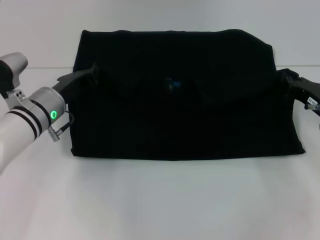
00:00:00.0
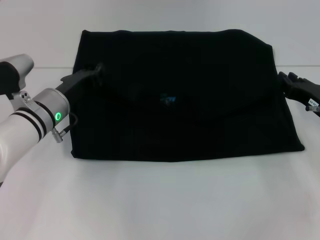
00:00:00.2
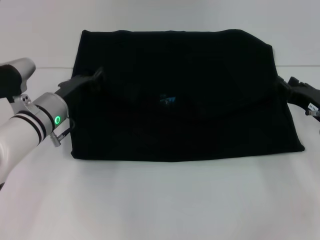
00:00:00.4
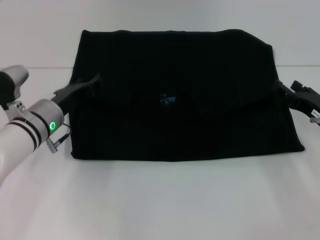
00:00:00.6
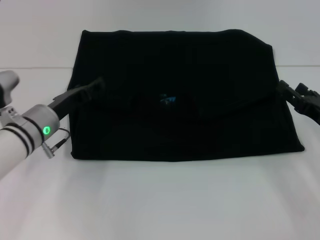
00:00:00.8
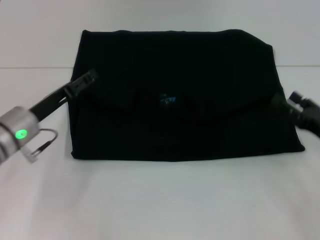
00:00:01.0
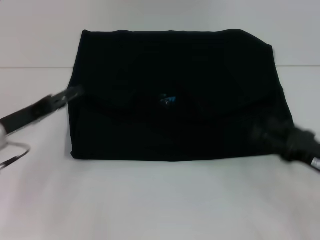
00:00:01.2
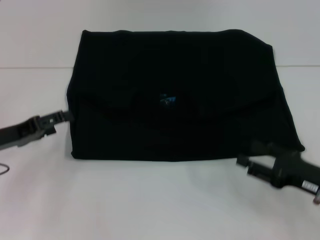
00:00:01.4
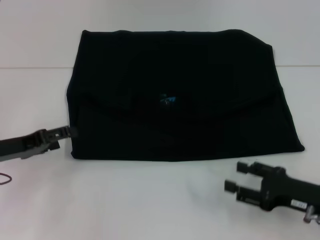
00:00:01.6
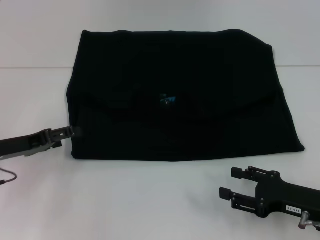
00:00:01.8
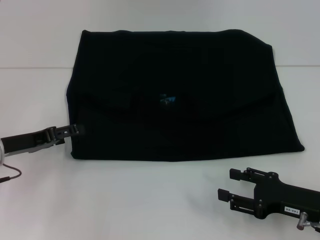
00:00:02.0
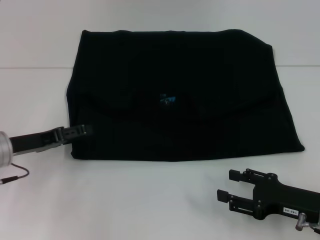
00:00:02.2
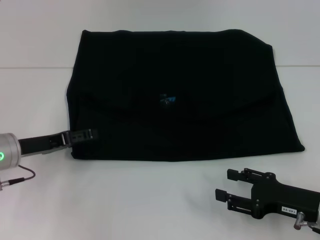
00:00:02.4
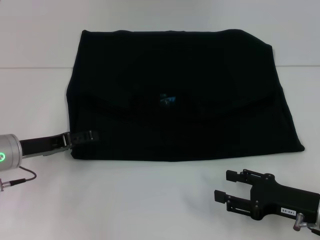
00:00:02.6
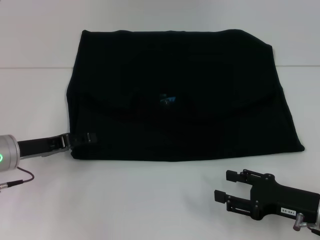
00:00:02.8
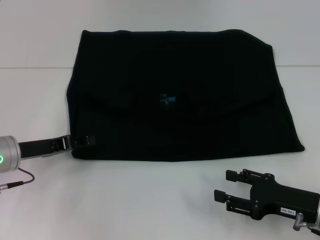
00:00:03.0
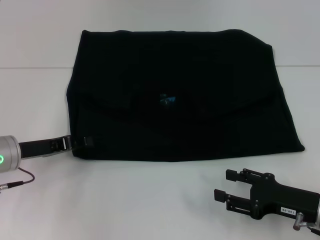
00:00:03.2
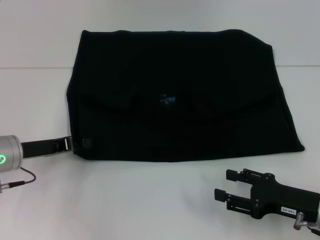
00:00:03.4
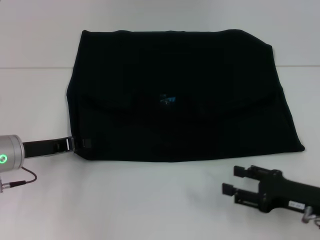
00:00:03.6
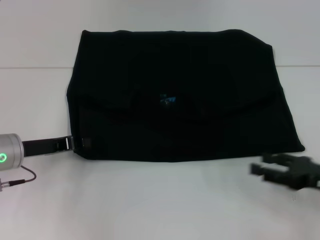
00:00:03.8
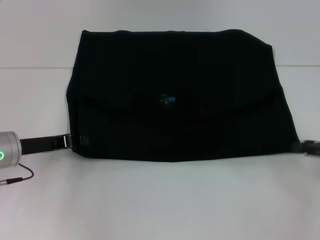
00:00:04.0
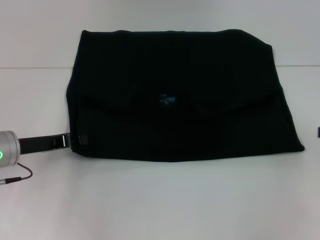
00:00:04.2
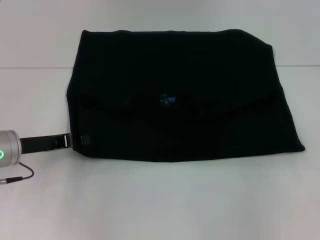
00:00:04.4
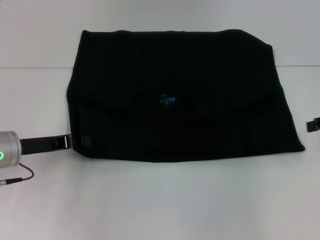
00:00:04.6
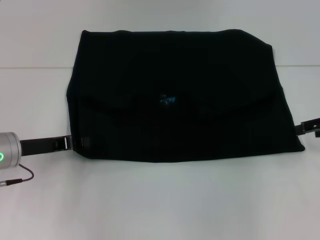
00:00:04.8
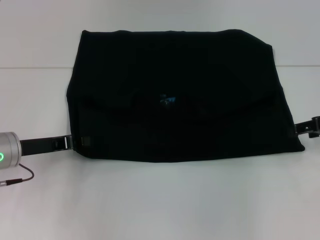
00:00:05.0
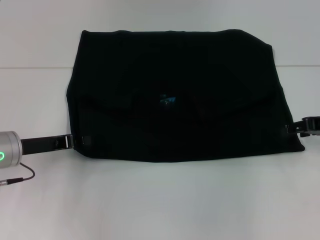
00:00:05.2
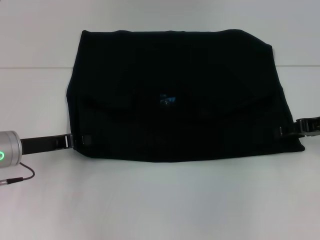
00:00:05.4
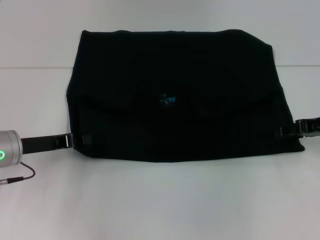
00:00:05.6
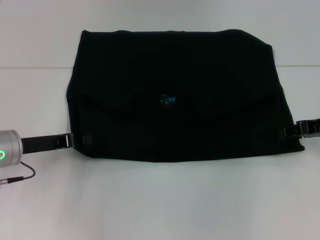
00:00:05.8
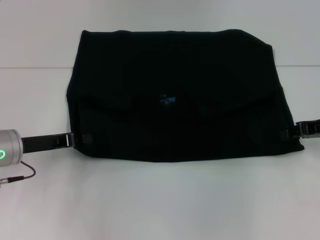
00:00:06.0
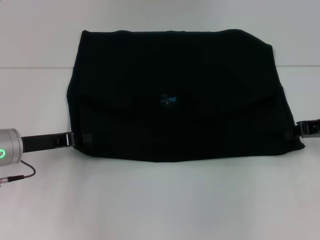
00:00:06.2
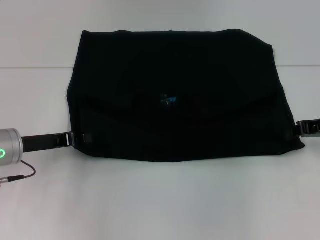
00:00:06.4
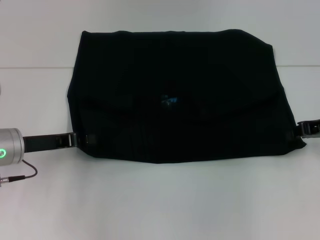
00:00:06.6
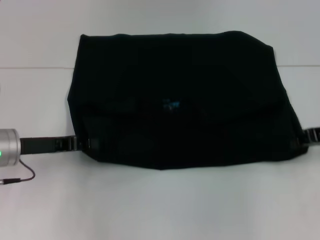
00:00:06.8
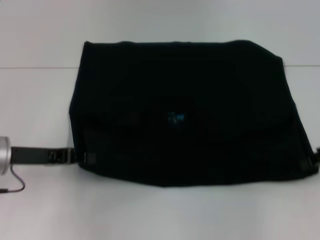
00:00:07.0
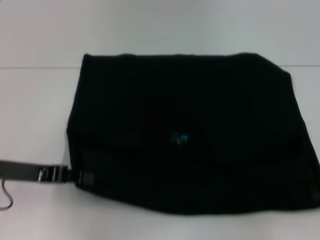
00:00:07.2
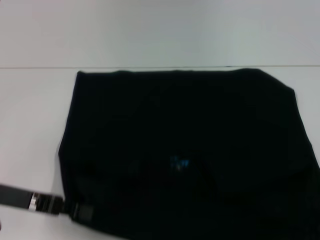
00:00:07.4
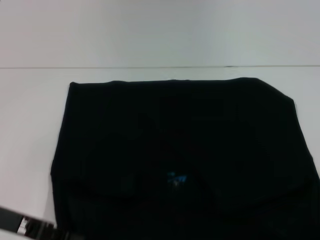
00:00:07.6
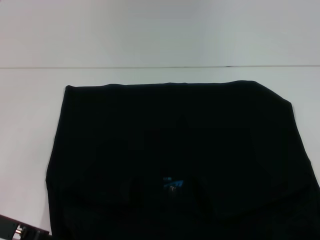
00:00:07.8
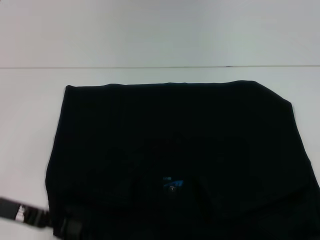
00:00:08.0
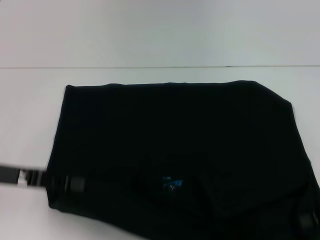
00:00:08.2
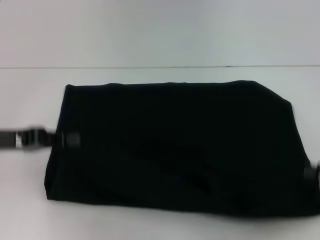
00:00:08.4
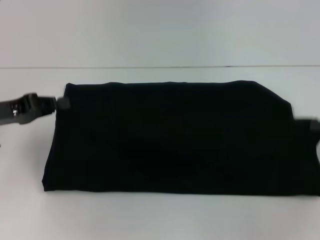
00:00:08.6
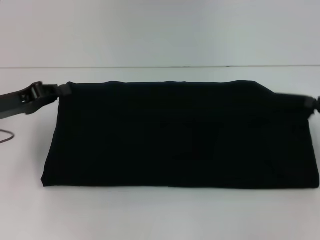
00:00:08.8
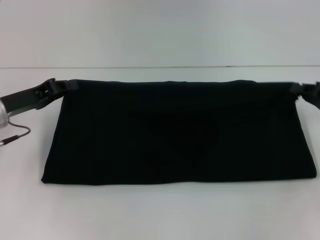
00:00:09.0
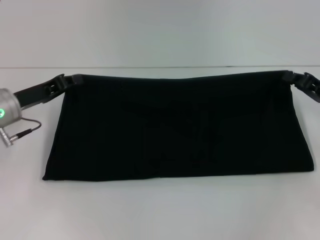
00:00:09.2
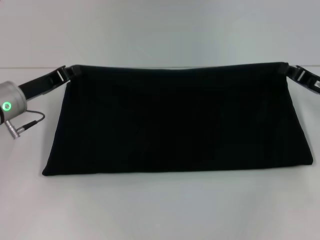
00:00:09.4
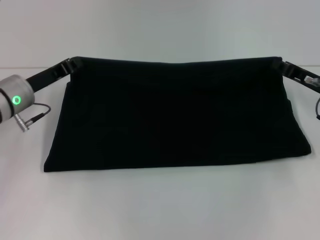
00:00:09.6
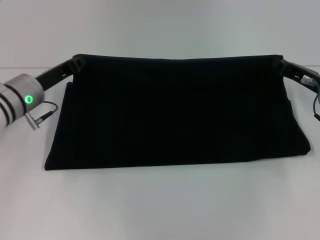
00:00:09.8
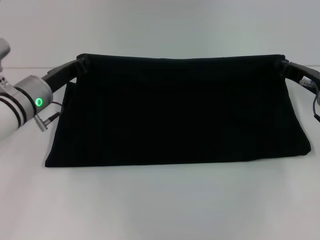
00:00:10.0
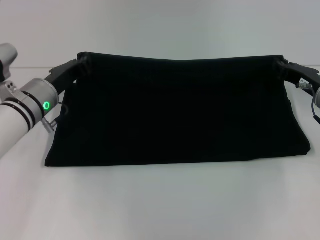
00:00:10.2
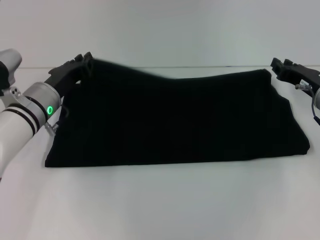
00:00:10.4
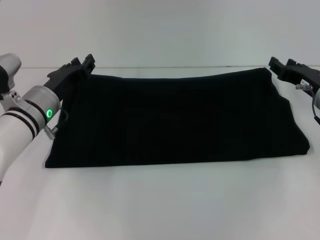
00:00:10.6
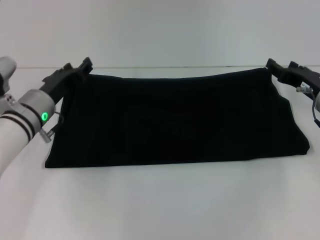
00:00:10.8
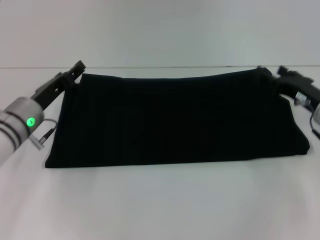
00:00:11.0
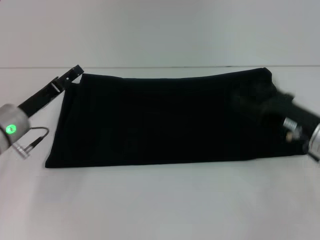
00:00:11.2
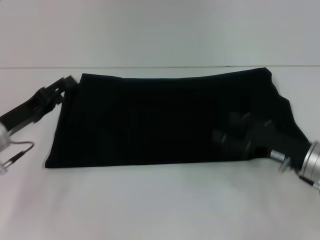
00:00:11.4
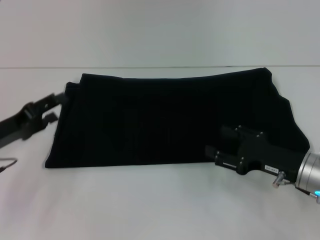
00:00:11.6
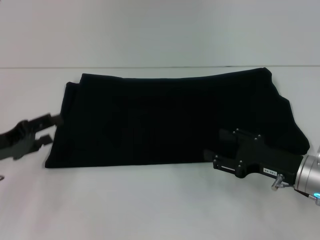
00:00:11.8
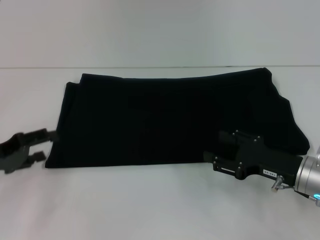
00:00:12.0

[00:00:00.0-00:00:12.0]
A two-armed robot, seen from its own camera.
Step, 00:00:01.4 to 00:00:07.6: Pull the clothes with your left hand.
Step, 00:00:01.4 to 00:00:07.6: Pull the clothes with your right hand.
Step, 00:00:07.8 to 00:00:11.2: Fold the clothes with your right hand.
00:00:00.0 to 00:00:01.6: The left gripper travels to the left and backward by some 15 cm, and opens up. Meanwhile the right gripper goes about 10 cm backward, and opens up.
00:00:01.6 to 00:00:03.0: The grippers stay close to where they were, moving slightly.
00:00:03.0 to 00:00:04.4: The right gripper shifts about 20 cm upward, to the right and forward, while the left gripper closes its fingers.
00:00:04.4 to 00:00:06.0: The right gripper goes about 10 cm to the left and downward.
00:00:06.0 to 00:00:07.6: The grippers both shift backward by about 10 cm. The right gripper closes its fingers.
00:00:07.6 to 00:00:09.0: The grippers both shift forward by approximately 10 cm.
00:00:09.0 to 00:00:10.4: The left gripper heads to the right, covering about 10 cm, while the right gripper travels to the left by roughly 5 cm.
00:00:10.4 to 00:00:12.0: The right gripper goes approximately 10 cm backward, and opens up. Meanwhile the left gripper heads to the left and backward, covering about 15 cm, and opens up.

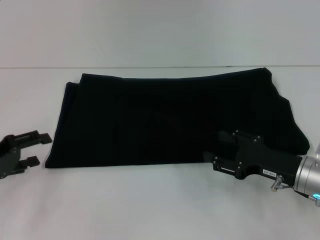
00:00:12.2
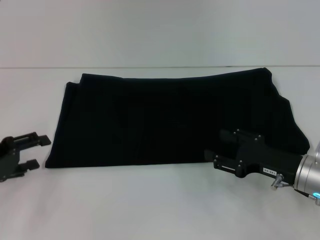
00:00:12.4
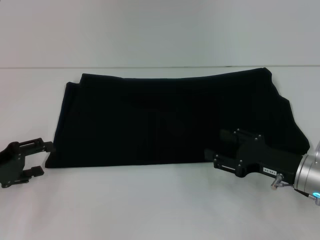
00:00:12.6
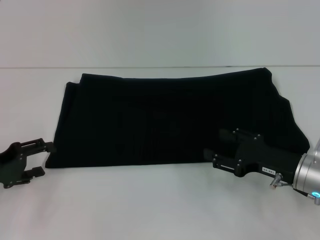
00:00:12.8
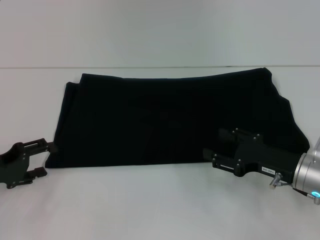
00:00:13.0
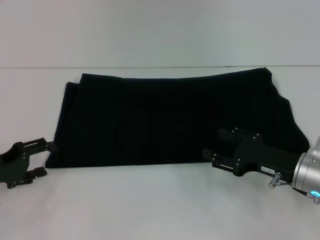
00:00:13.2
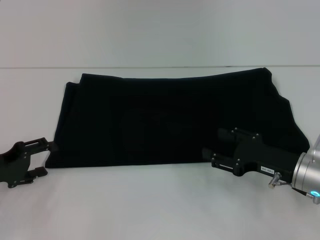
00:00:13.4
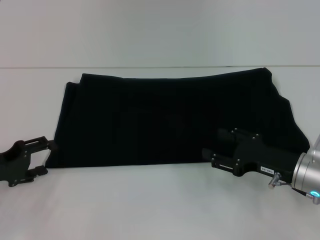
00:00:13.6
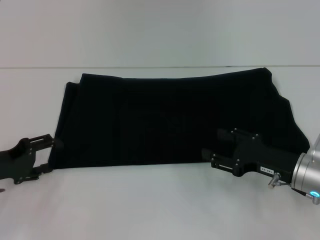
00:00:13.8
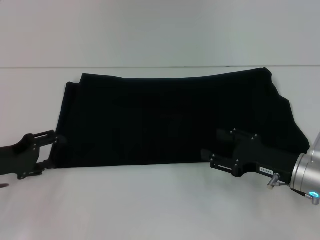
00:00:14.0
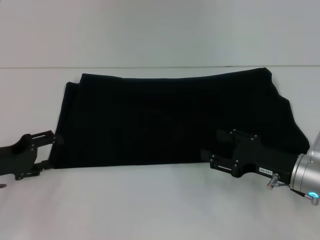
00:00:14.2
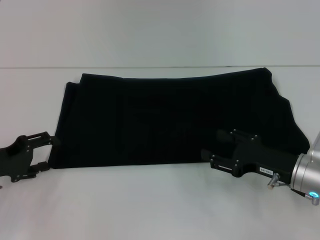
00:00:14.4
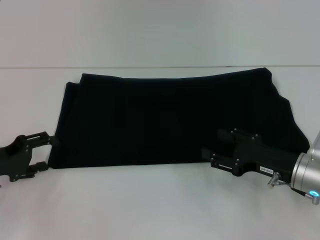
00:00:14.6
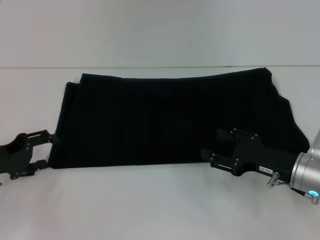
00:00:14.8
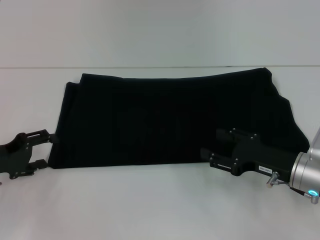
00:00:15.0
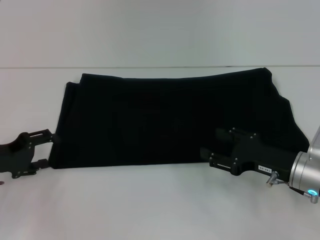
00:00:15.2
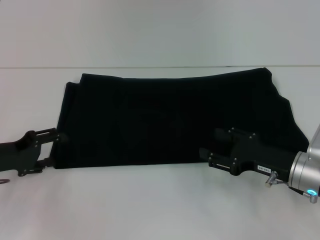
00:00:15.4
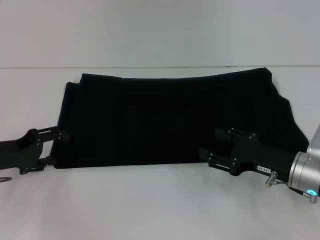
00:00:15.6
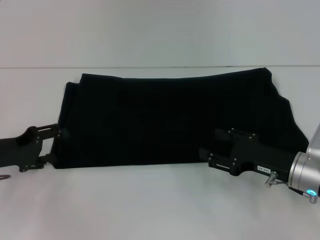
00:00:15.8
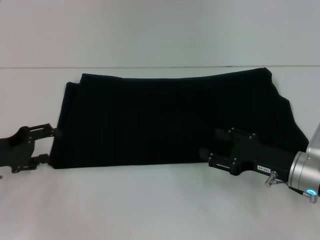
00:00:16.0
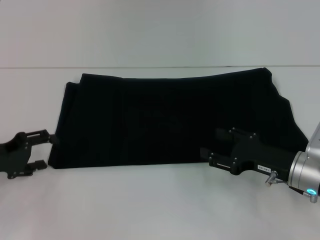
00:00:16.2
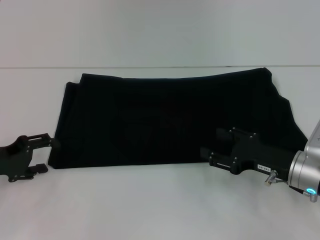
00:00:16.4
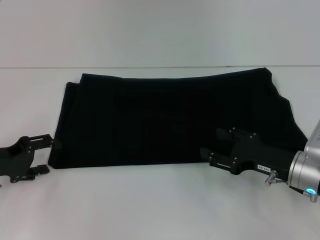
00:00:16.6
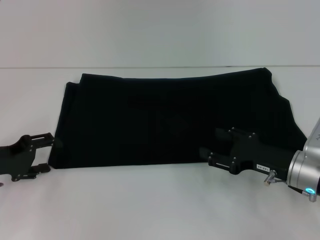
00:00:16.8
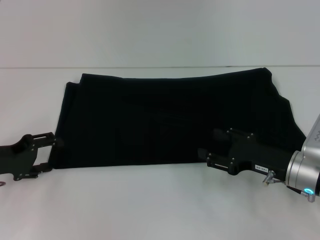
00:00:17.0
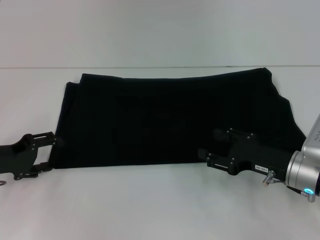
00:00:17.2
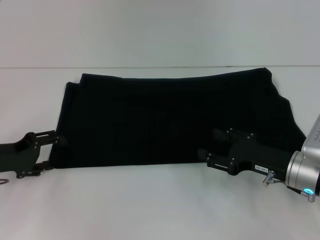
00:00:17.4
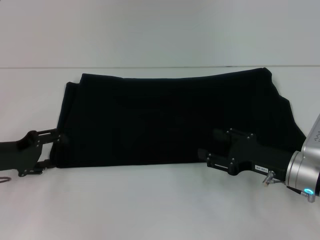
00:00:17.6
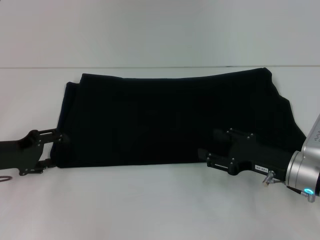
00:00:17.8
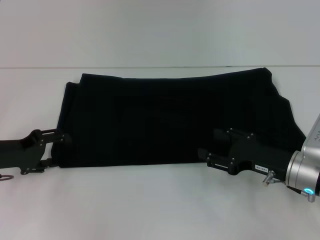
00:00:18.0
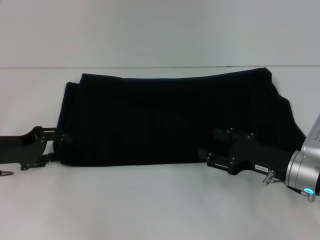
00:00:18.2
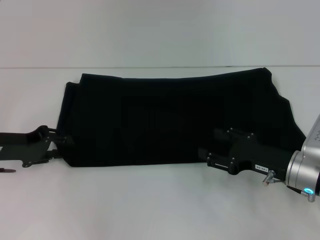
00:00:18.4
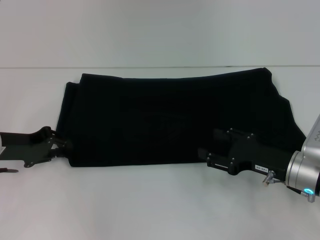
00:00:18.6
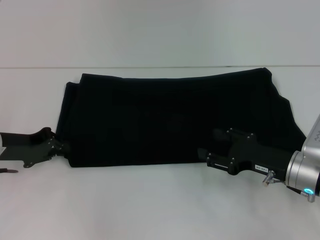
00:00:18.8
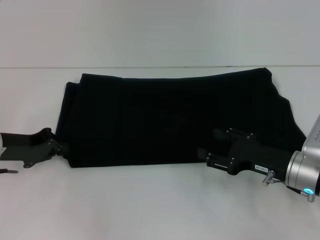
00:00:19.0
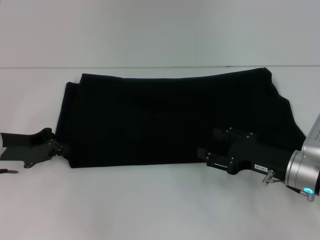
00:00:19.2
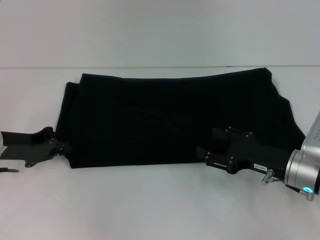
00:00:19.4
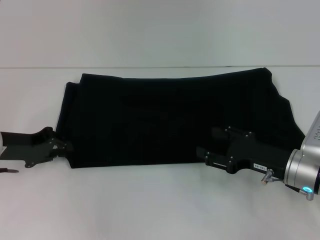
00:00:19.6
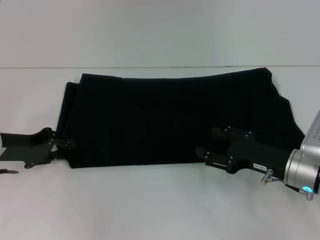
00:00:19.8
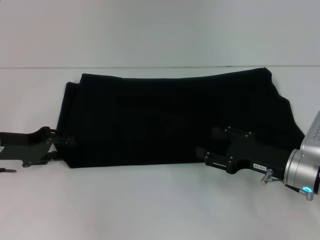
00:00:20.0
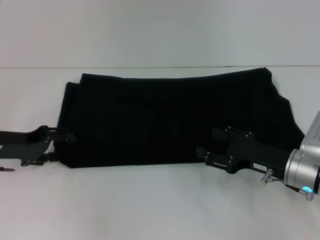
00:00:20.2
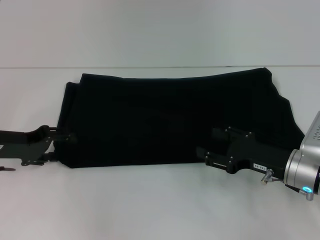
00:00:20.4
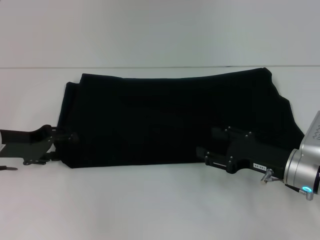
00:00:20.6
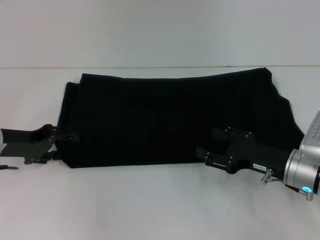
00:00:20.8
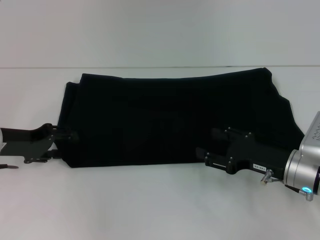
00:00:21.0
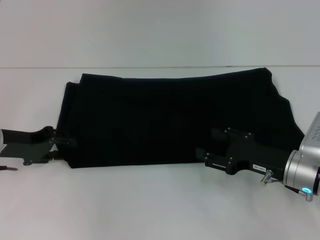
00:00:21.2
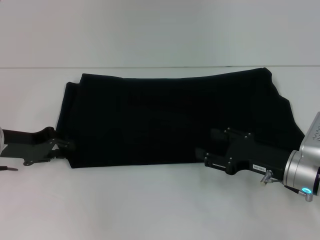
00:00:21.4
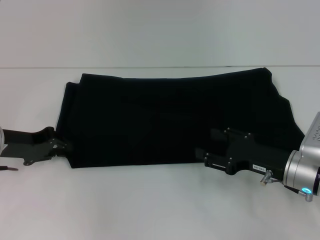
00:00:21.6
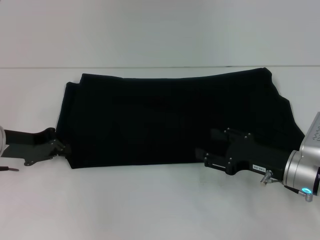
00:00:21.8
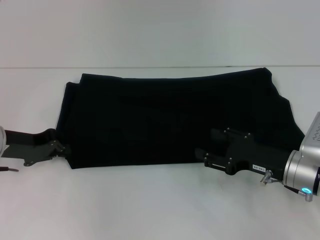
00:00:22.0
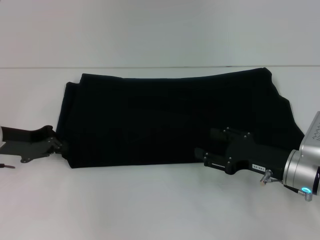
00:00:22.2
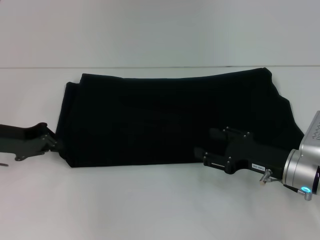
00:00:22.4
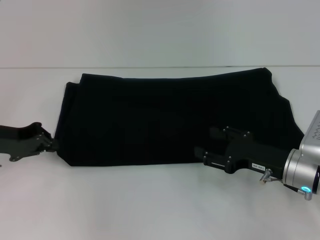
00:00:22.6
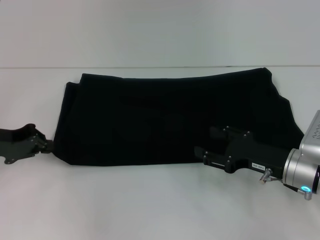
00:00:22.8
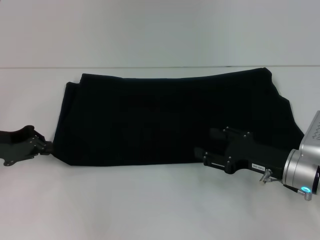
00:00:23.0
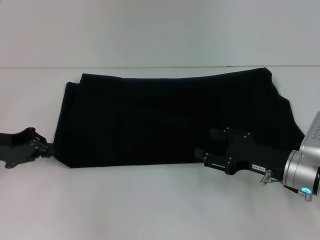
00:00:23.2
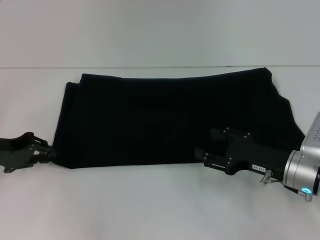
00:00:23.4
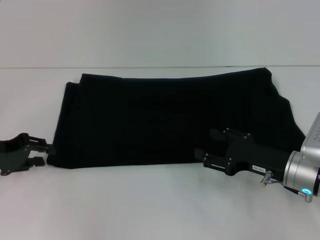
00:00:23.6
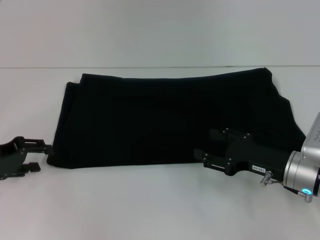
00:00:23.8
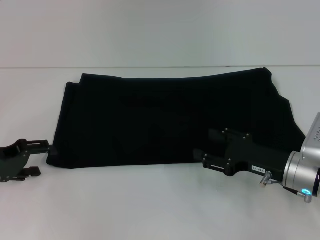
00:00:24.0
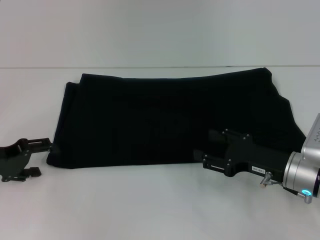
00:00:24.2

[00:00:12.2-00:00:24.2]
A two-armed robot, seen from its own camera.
00:00:12.2 to 00:00:13.8: There are only small adjustments of the grippers.
00:00:13.8 to 00:00:15.2: The two grippers keep their place.
00:00:15.2 to 00:00:18.2: The grippers move only a little.
00:00:18.2 to 00:00:19.8: The left gripper closes its fingers.
00:00:19.8 to 00:00:21.2: The left gripper opens.
00:00:21.2 to 00:00:22.6: The left gripper closes up.
00:00:22.6 to 00:00:24.2: The left gripper opens.
